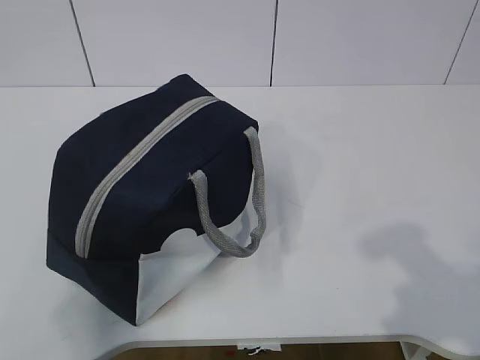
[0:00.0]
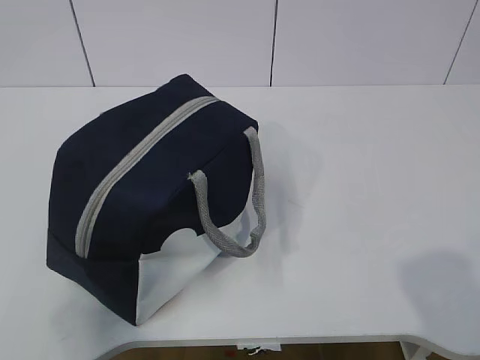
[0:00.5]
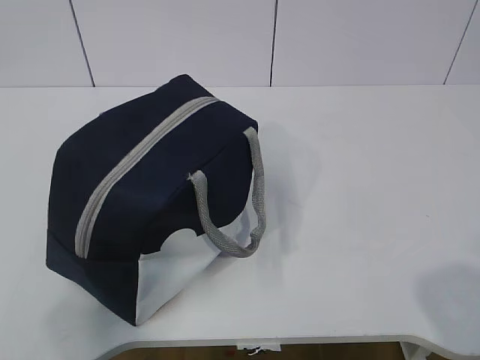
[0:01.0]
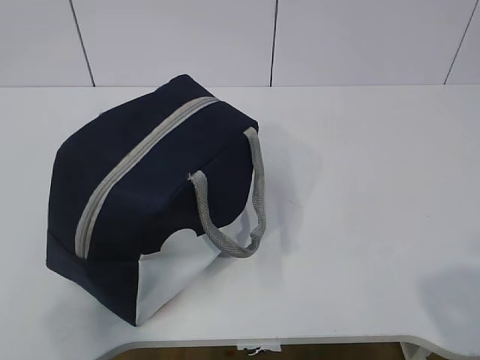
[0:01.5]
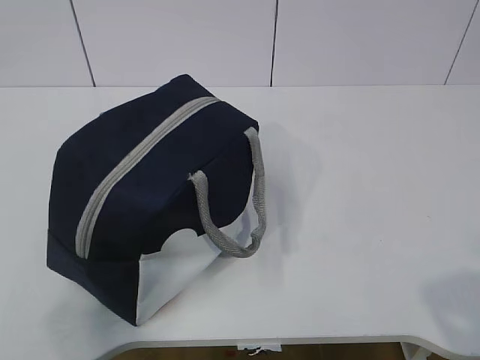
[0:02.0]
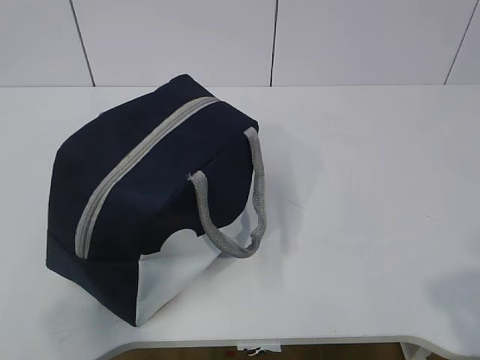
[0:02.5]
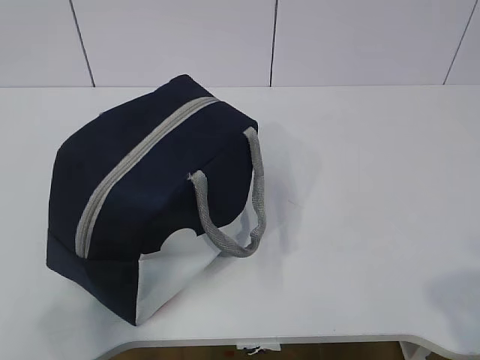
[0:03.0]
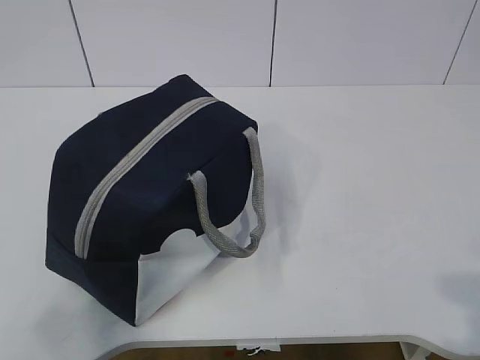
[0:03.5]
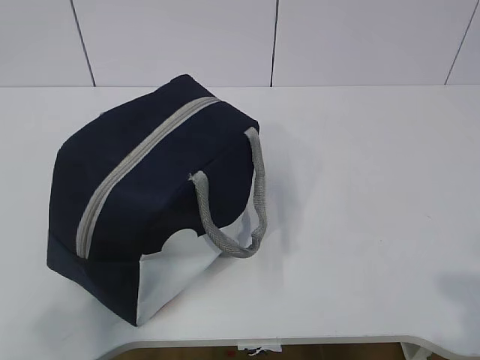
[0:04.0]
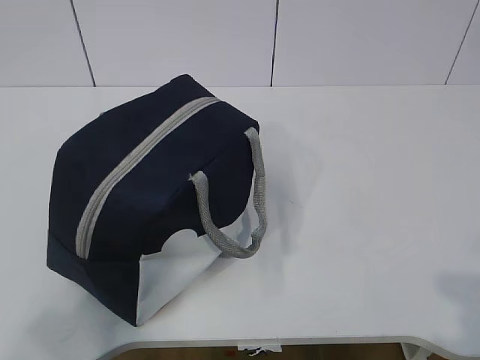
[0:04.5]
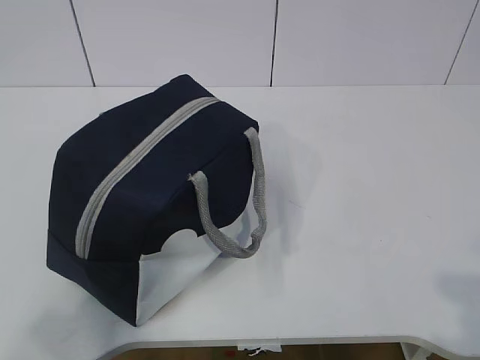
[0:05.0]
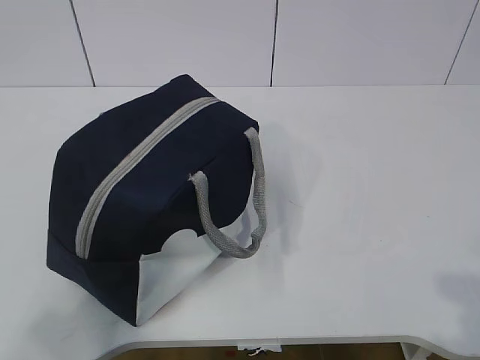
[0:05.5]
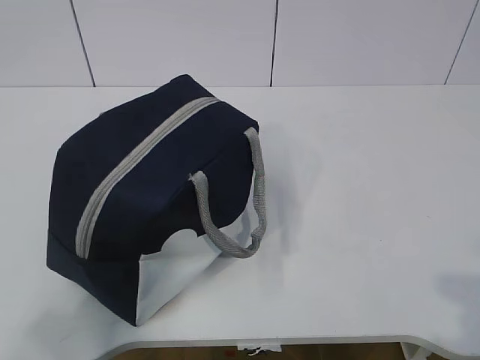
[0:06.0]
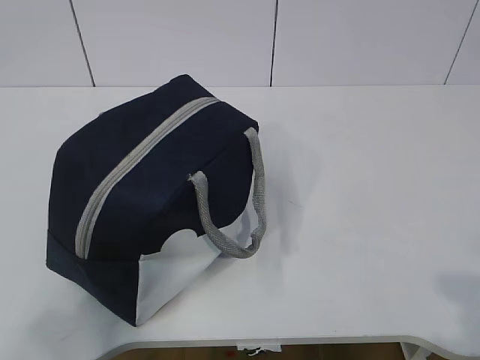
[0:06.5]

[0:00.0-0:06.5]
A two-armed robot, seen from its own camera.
0:04.5 to 0:06.5: Neither gripper changes place.

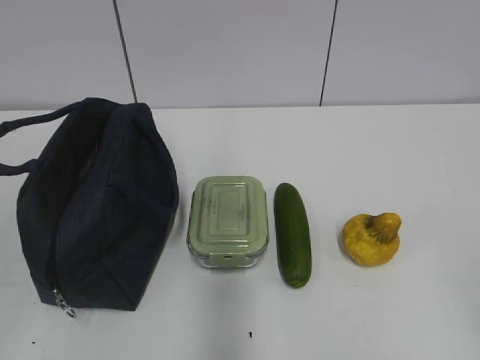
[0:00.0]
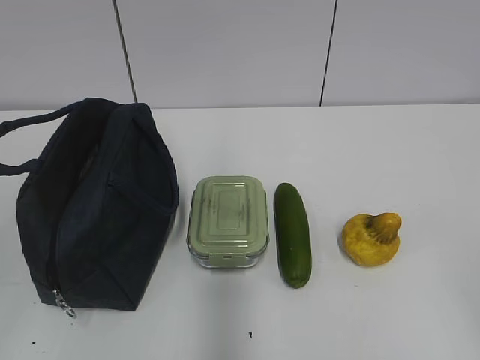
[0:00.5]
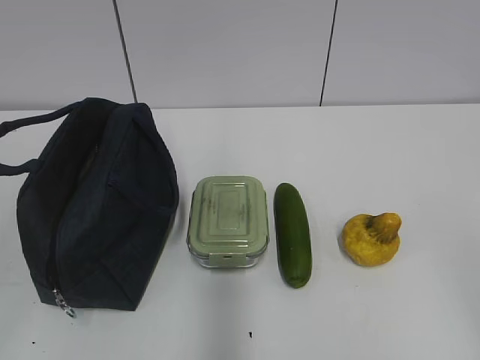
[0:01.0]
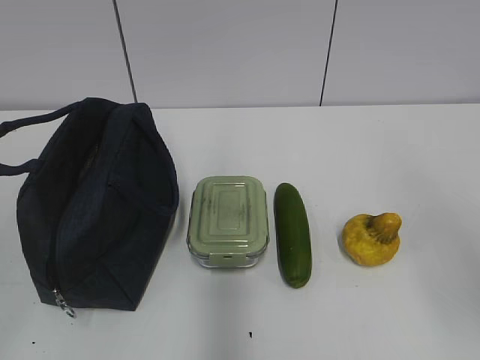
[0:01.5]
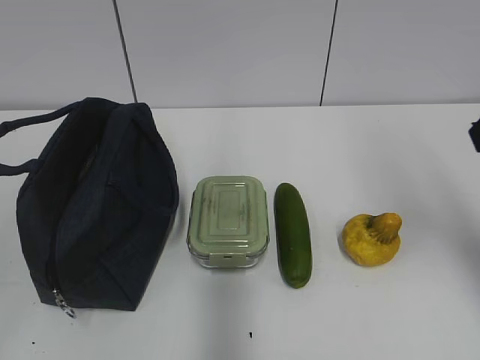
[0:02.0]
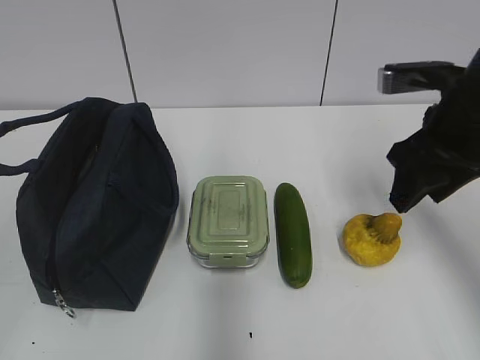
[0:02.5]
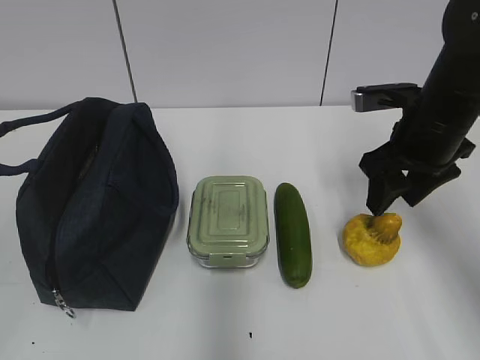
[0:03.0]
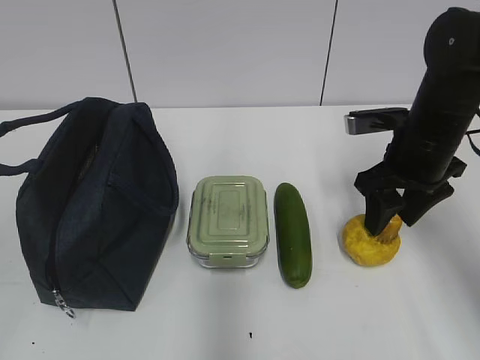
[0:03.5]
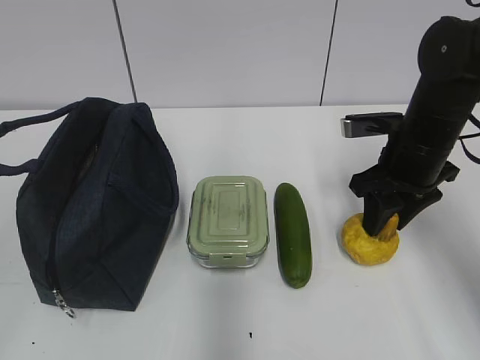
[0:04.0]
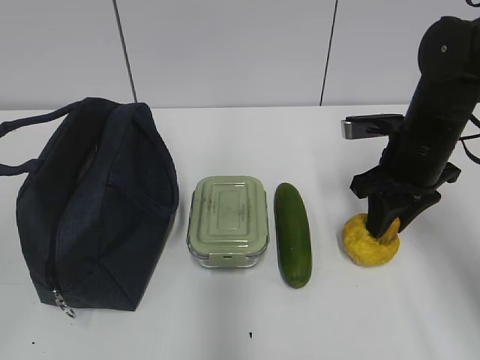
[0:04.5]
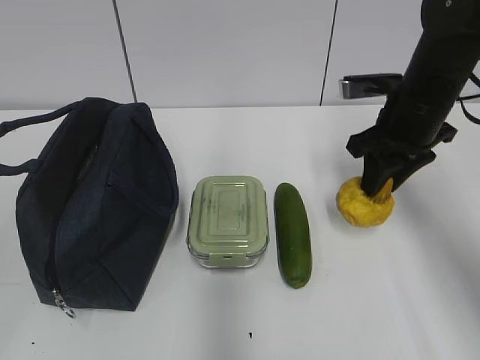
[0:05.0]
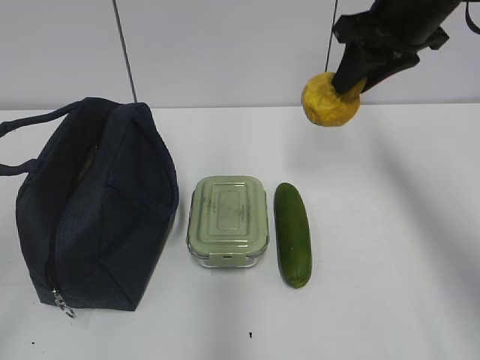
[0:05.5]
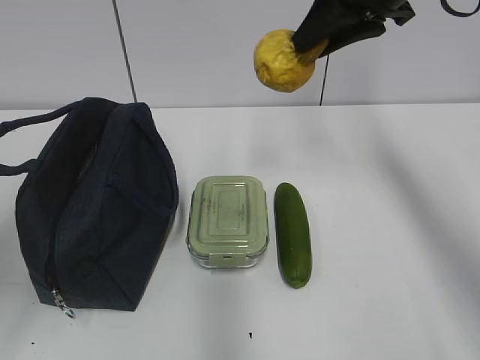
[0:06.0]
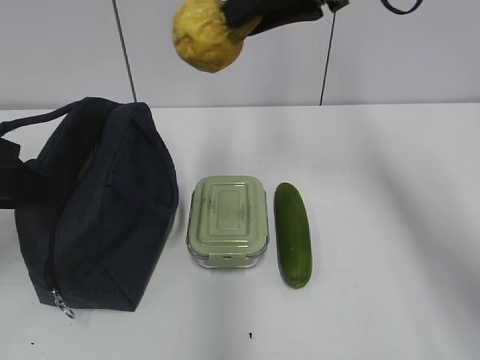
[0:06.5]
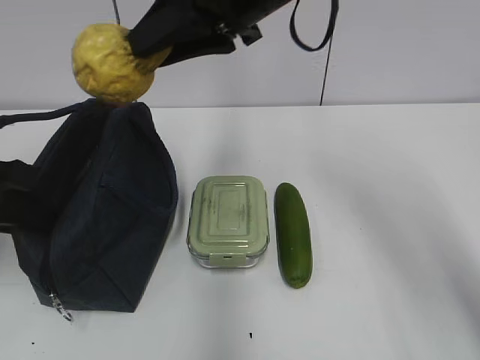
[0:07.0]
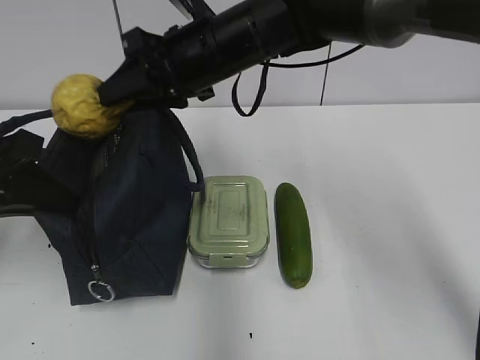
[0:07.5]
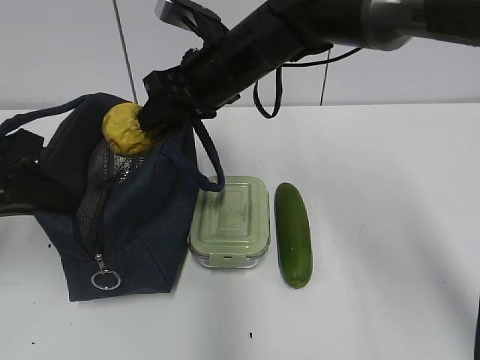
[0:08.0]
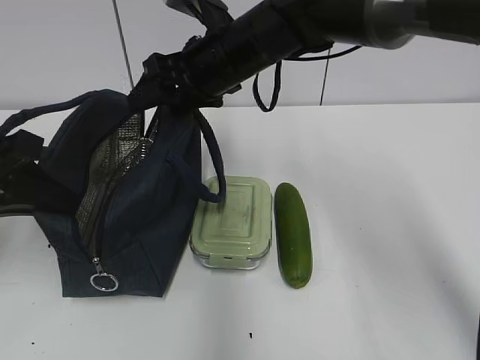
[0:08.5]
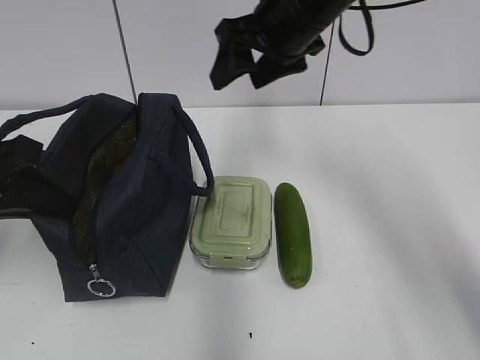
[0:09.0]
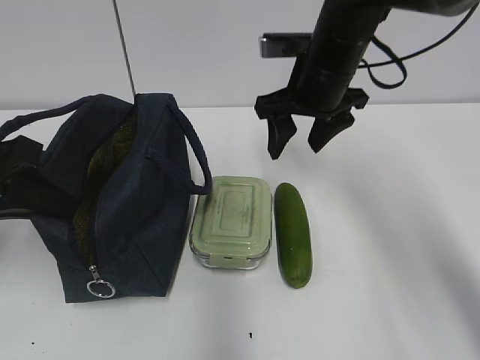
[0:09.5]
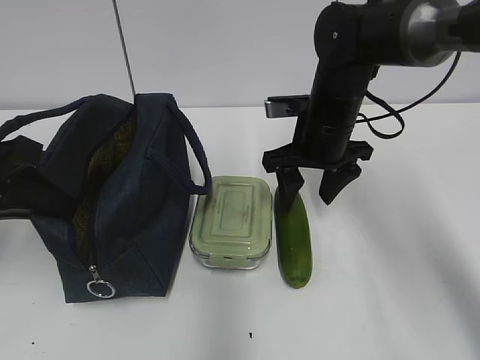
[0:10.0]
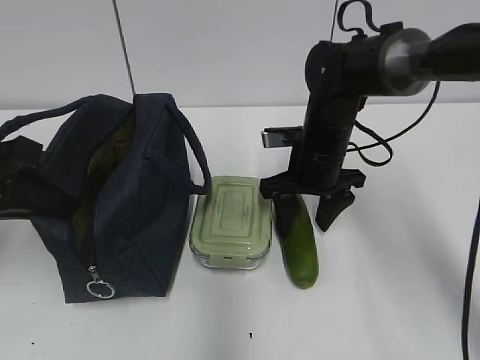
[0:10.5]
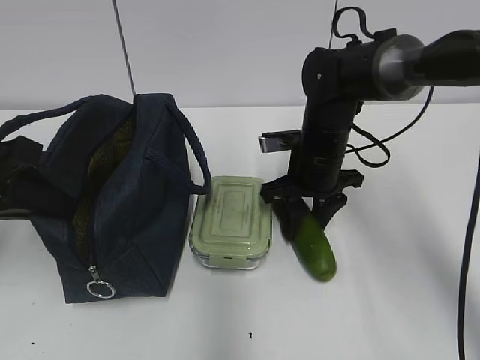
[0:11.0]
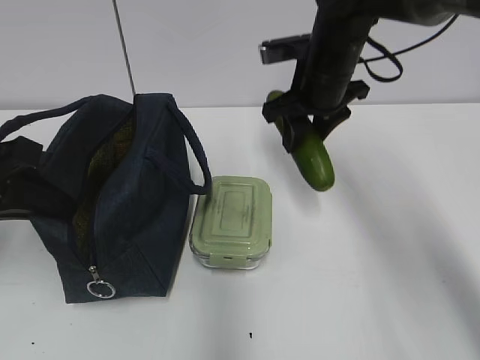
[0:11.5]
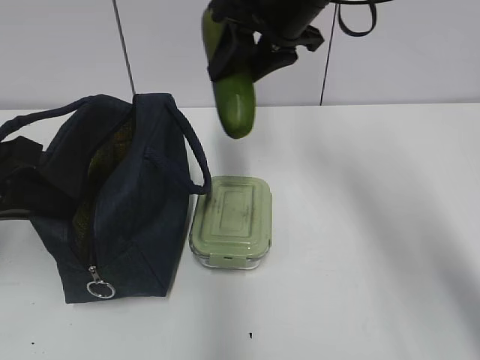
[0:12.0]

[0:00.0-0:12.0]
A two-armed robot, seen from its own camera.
Step, 0:00.0 to 0:04.0: Grab the pear with your right hand.
Step, 0:04.5 to 0:07.5: Grab the lunch bag with your left hand.
Step, 0:08.5 to 0:10.5: Grab the cucumber with your right hand.
0:02.0 to 0:04.0: The right gripper shifts about 20 cm downward and forward.
0:04.0 to 0:06.0: The left gripper moves forward, approximately 15 cm. Meanwhile the right gripper travels upward by roughly 20 cm.
0:06.0 to 0:08.0: The right gripper is displaced to the left and downward by about 20 cm. Meanwhile the left gripper travels forward and downward by about 15 cm, and closes.
0:08.0 to 0:10.0: The right gripper heads to the right and downward, covering approximately 15 cm, and opens its fingers.
0:10.0 to 0:12.0: The right gripper heads upward, covering some 15 cm, and closes up.

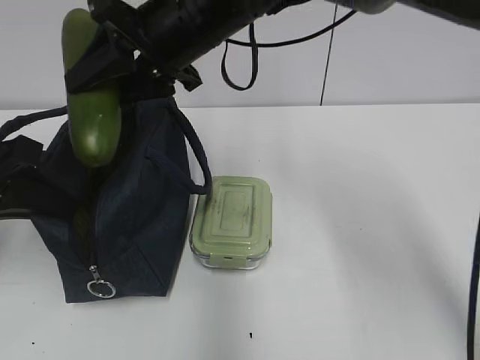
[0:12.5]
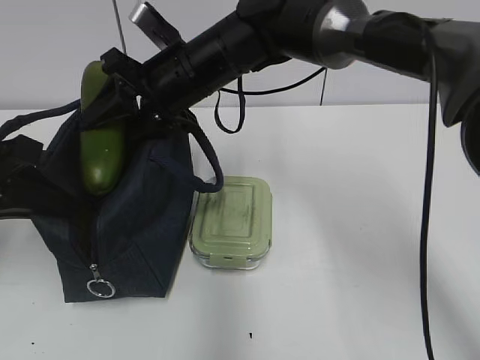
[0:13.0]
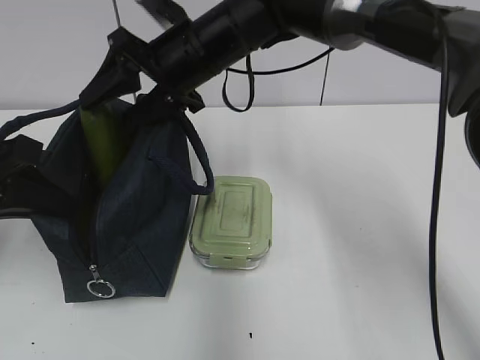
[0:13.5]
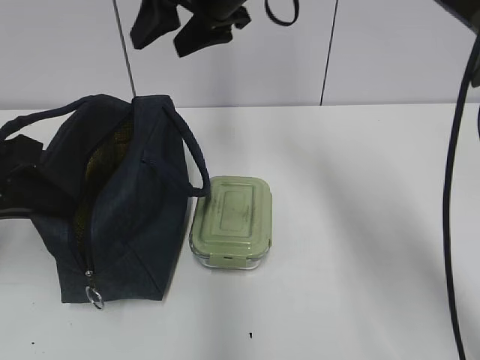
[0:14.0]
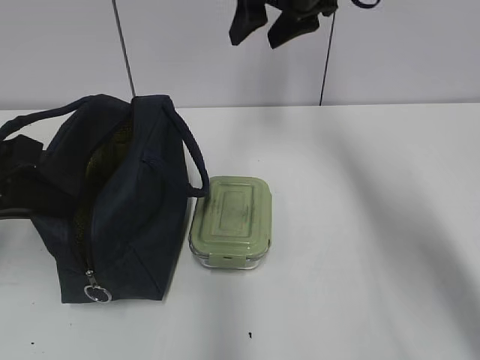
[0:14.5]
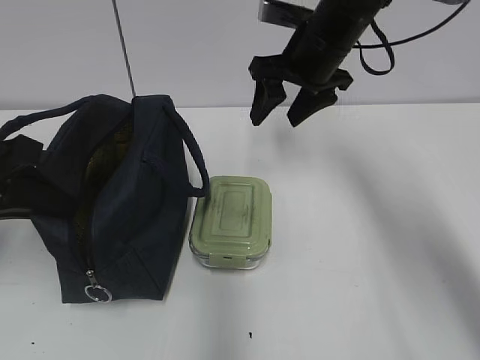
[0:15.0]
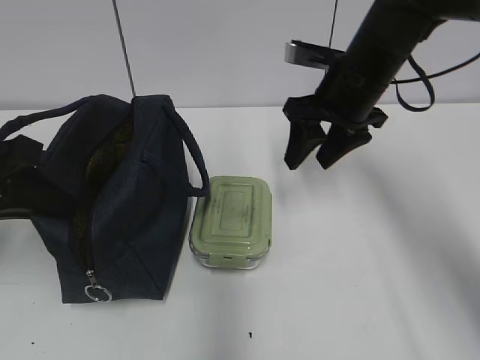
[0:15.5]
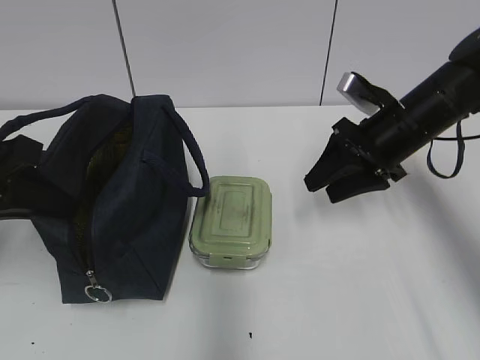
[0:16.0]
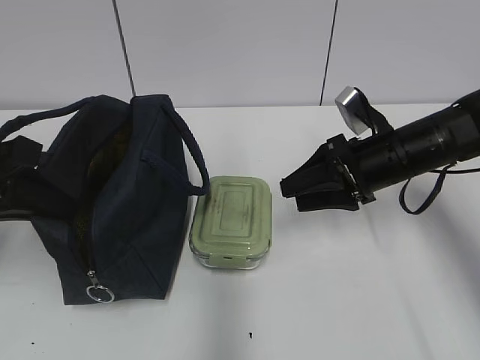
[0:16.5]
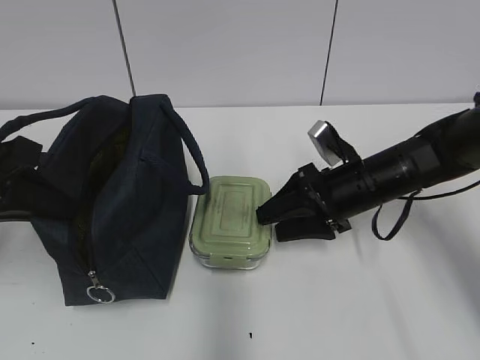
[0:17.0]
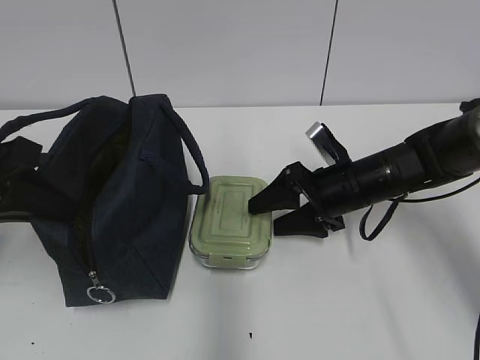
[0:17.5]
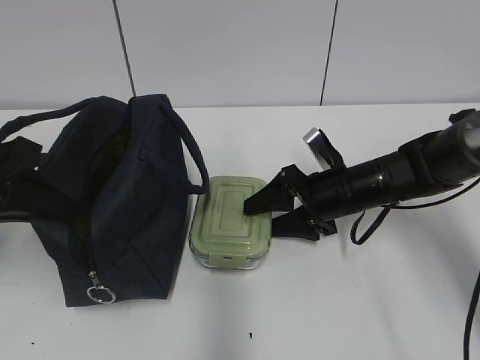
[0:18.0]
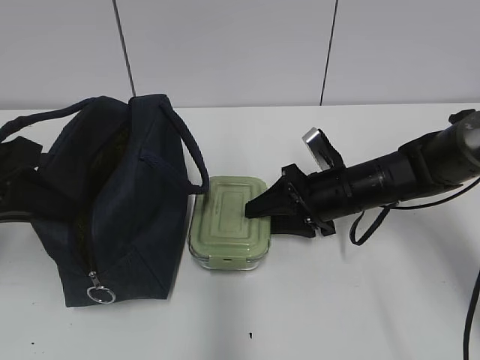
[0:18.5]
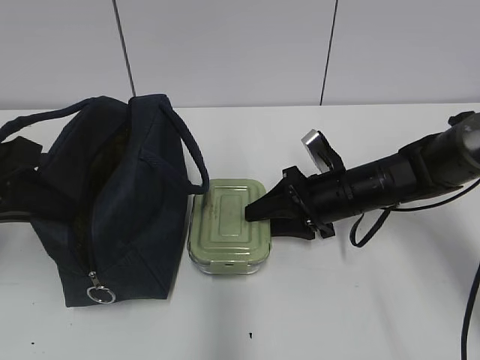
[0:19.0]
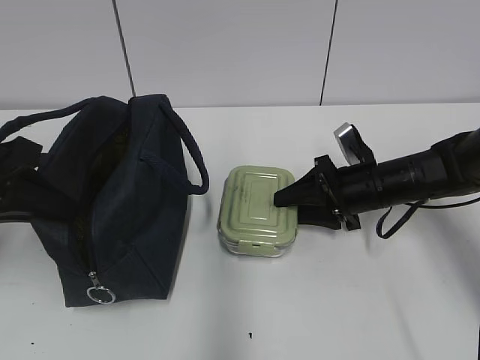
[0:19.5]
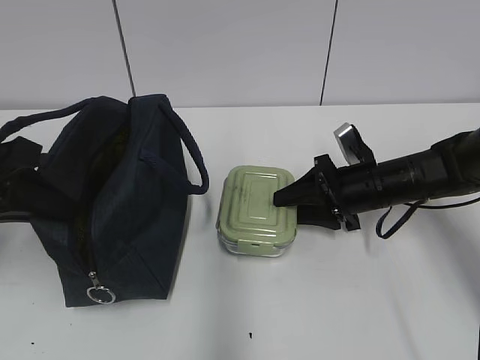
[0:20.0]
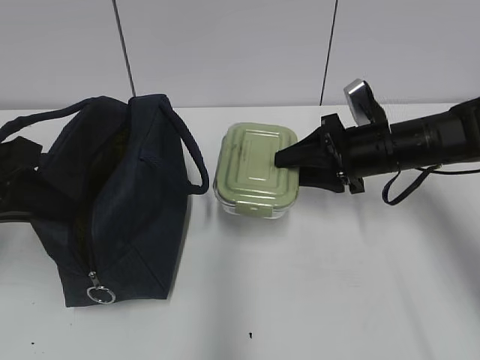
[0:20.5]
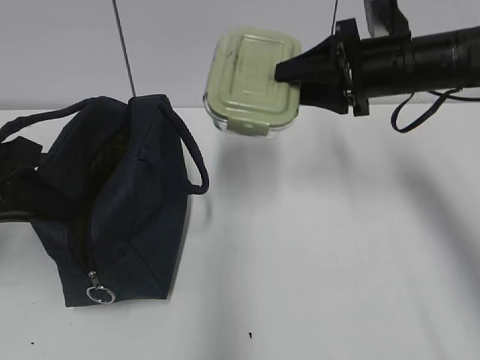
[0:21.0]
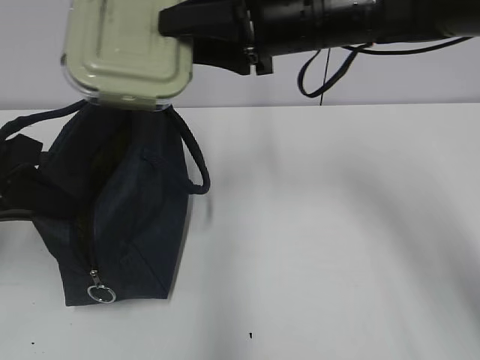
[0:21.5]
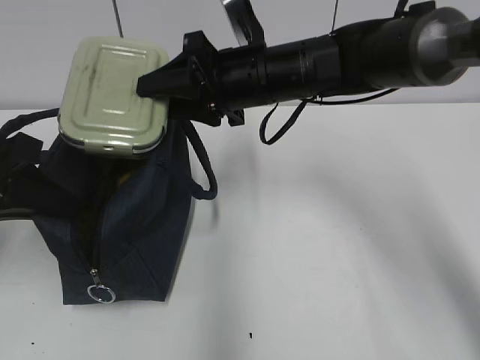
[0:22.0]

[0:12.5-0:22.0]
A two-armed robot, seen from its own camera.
Step, 0:14.0 to 0:18.5: Grab the lunch box with your right hand.
0:12.5 to 0:14.5: The right gripper is displaced to the right and forward by roughly 15 cm, and opens its fingers.
0:14.5 to 0:16.5: The right gripper moves downward, backward and to the right, some 20 cm.
0:16.5 to 0:18.0: The right gripper heads downward, covering about 5 cm.
0:18.0 to 0:20.0: The grippers make only small movements.
0:20.0 to 0:22.0: The right gripper moves upward and to the left, about 20 cm.
